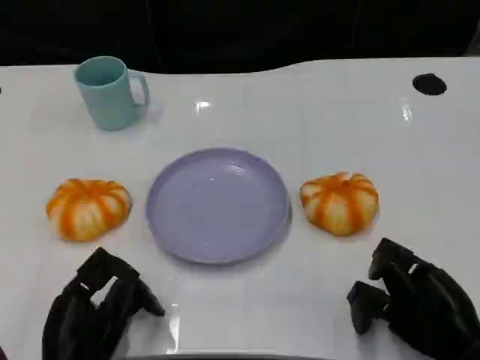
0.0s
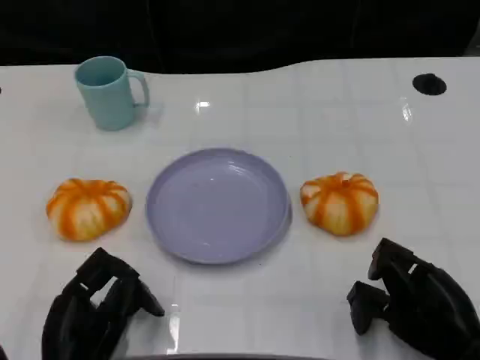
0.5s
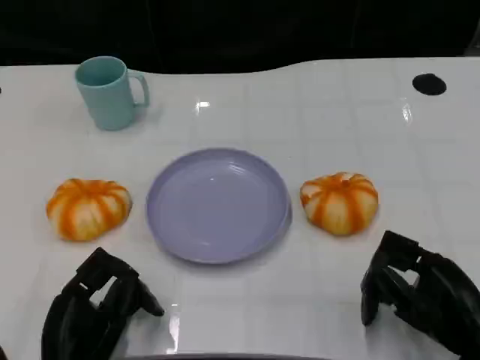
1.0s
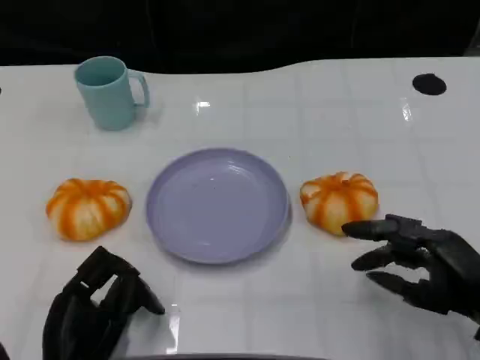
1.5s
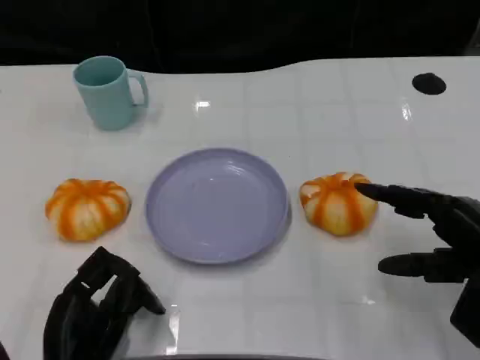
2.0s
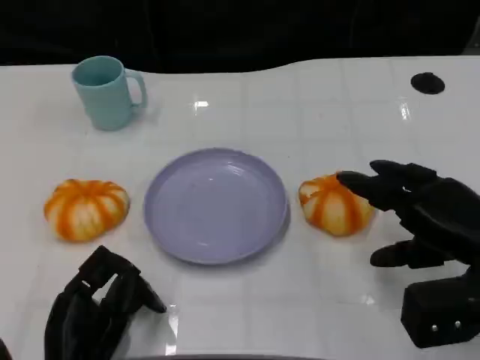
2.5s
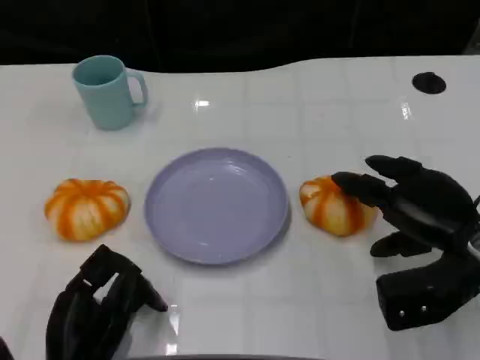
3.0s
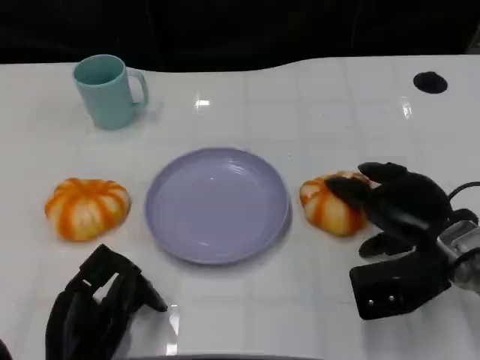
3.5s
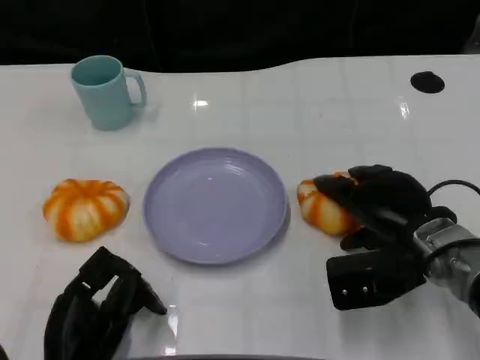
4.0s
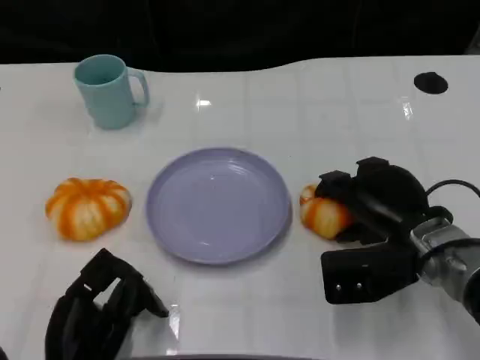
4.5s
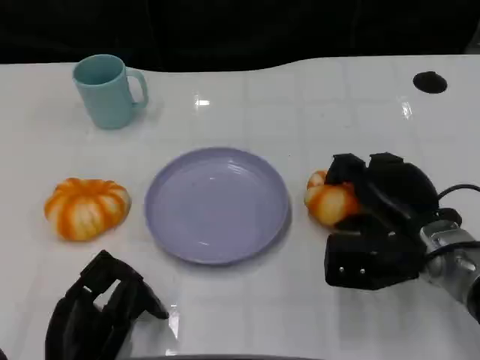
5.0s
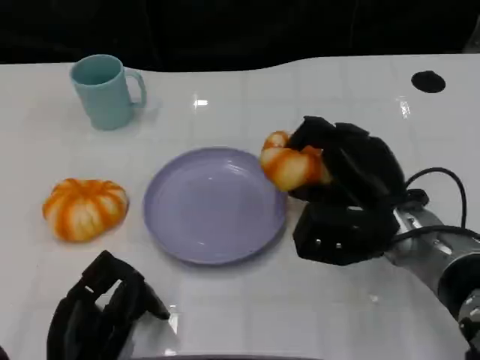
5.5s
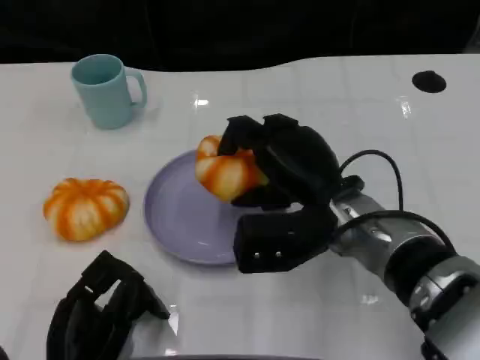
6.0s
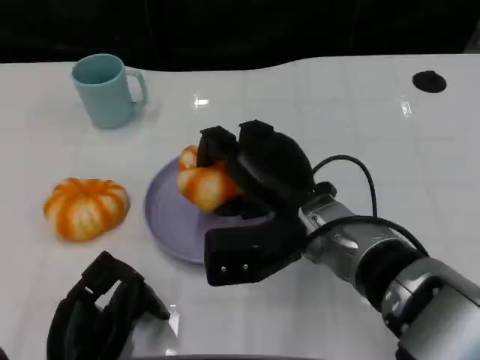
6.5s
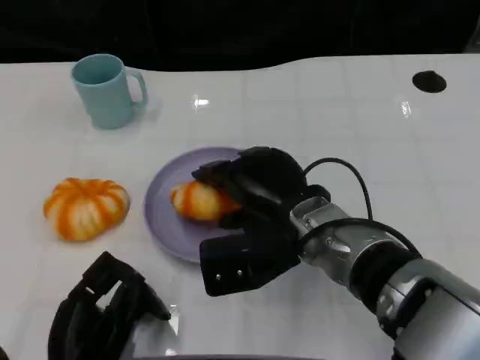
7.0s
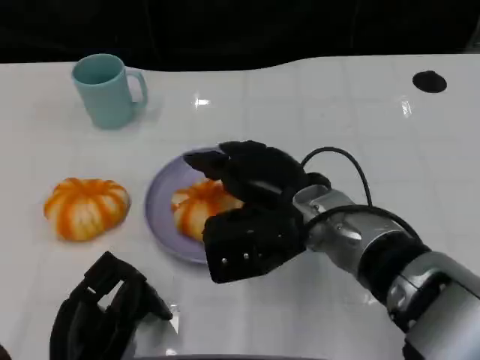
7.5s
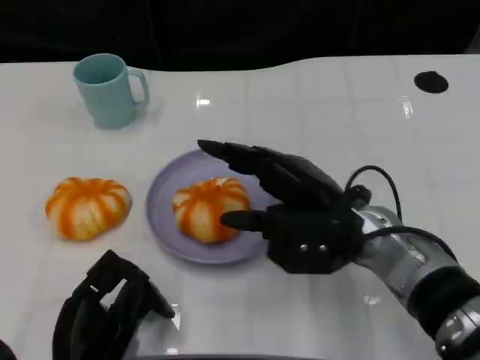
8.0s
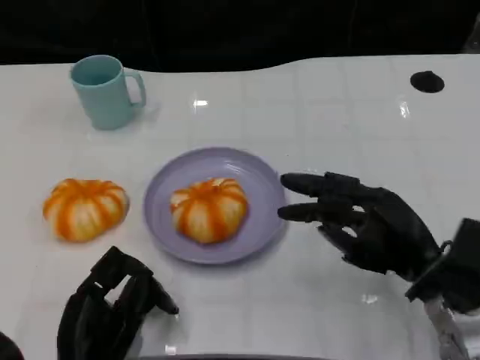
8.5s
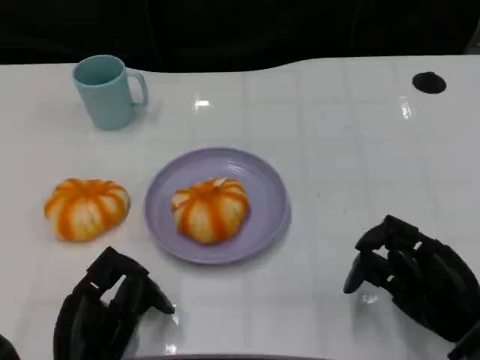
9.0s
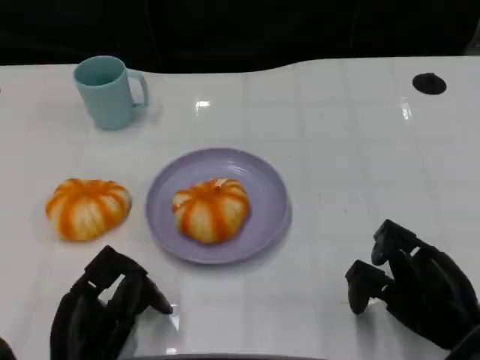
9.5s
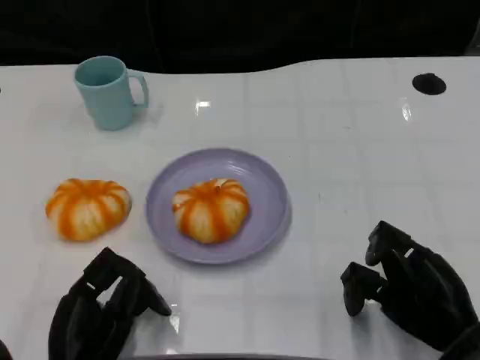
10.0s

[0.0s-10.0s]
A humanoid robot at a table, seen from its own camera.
Task of the whole recording: Grasp the bread from the table and place it into the plate.
0.0s to 2.0s: The right hand shifts approximately 10 cm upward.
2.0s to 4.0s: The right hand goes roughly 10 cm to the left and forward.
4.0s to 6.0s: The right hand heads to the left, covering roughly 10 cm.
8.0s to 10.0s: The right hand goes about 15 cm to the right, backward and downward.

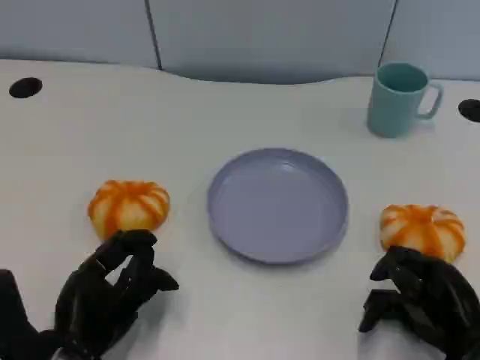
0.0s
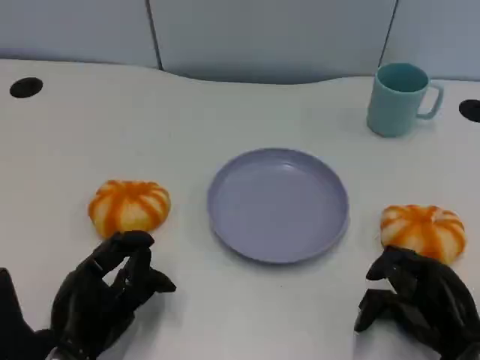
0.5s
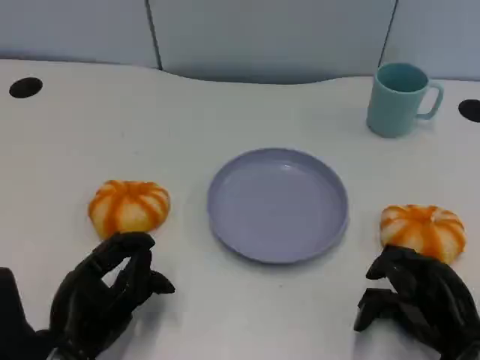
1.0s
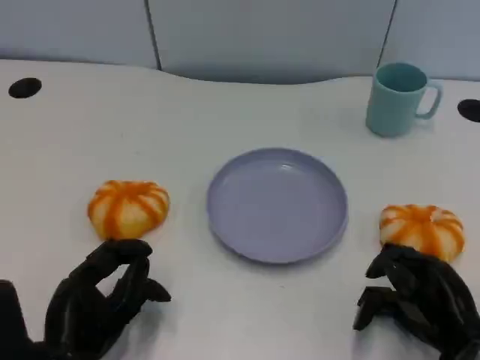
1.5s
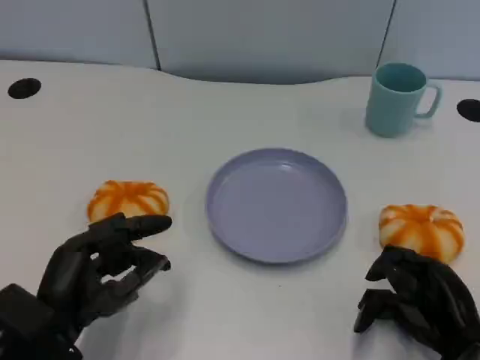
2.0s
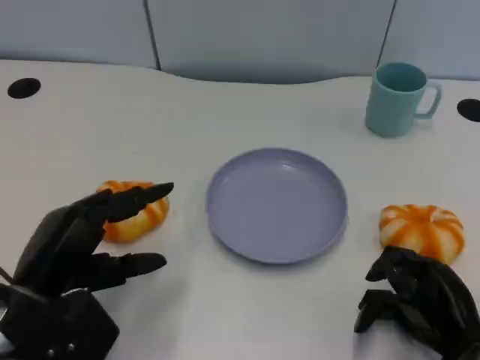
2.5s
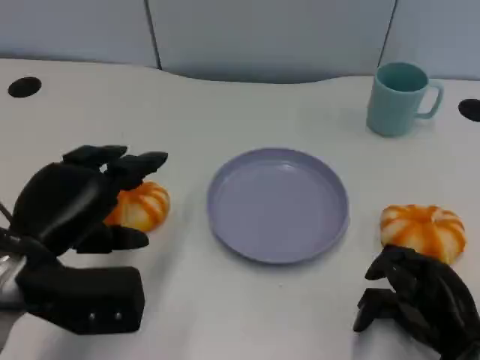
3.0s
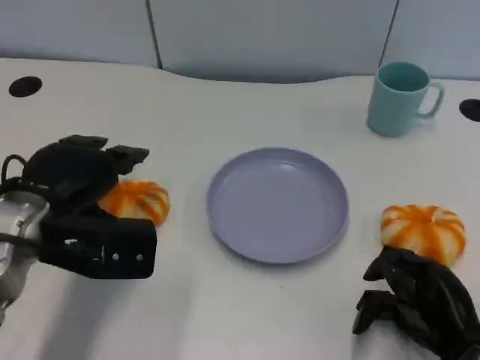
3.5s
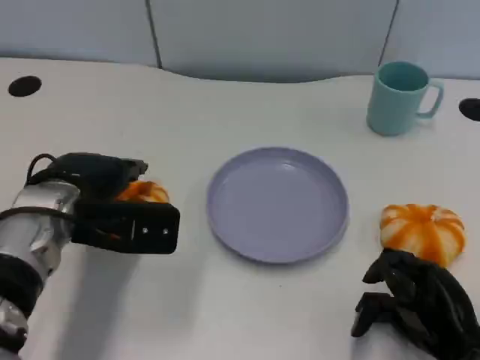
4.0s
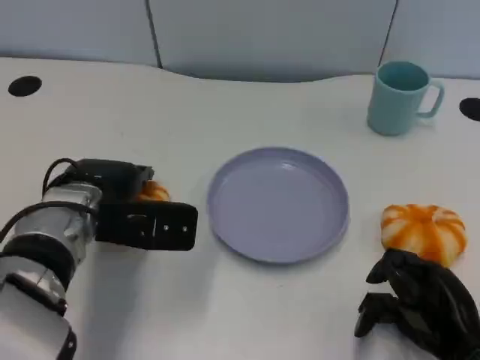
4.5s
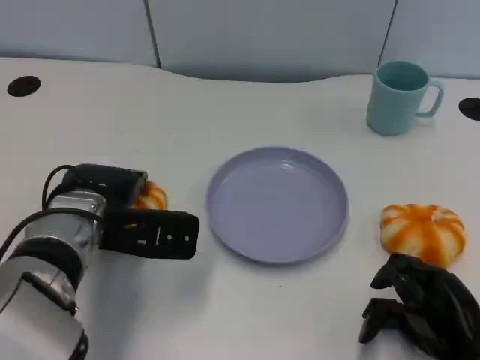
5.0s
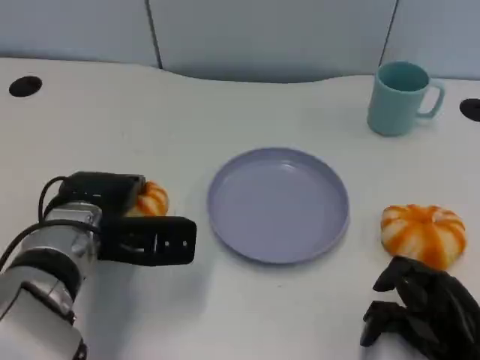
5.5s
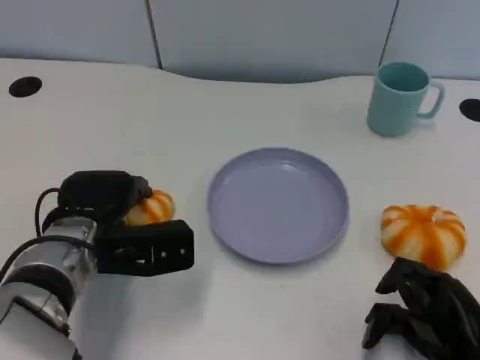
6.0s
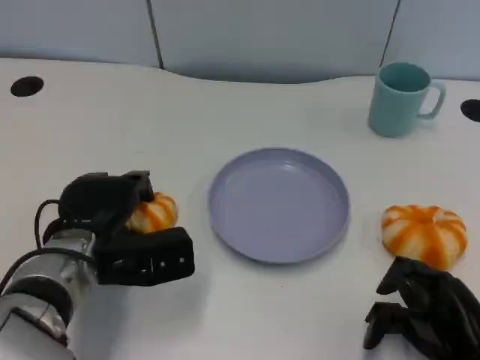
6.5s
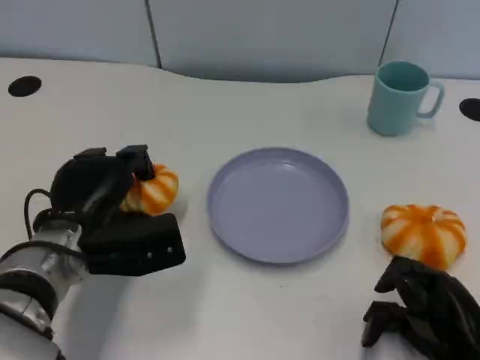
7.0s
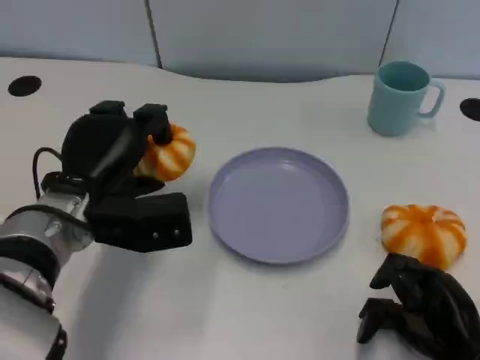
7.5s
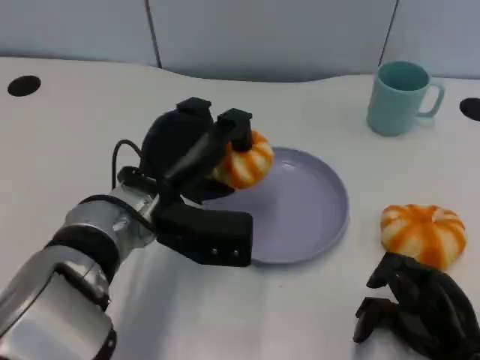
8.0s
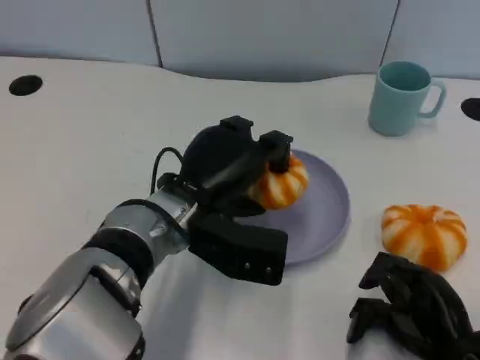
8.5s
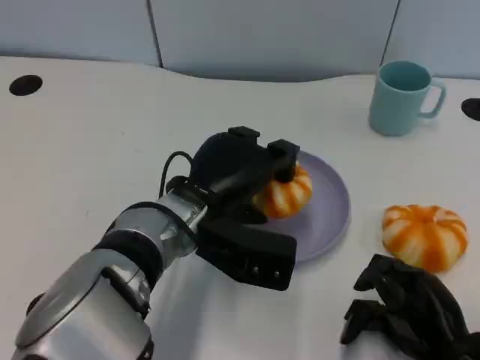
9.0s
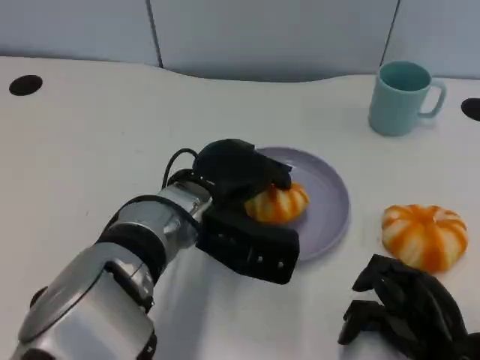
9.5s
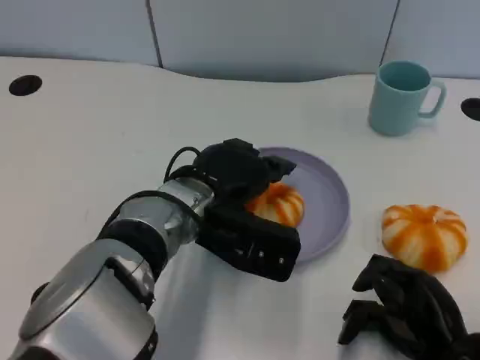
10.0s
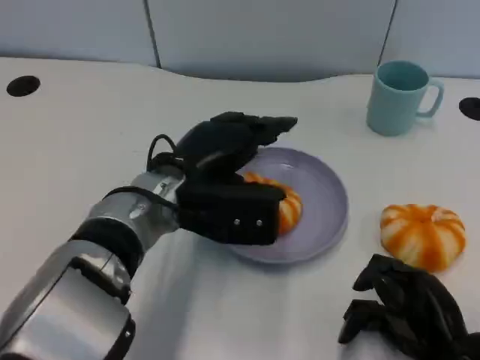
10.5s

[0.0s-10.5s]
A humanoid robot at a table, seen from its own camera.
Task of the whole recording: Grasp the bread from the table and place it into the plate.
2.0s to 4.0s: The left hand shifts some 15 cm forward and upward.
4.0s to 6.5s: The left hand moves downward, approximately 5 cm.
6.5s to 8.5s: The left hand goes roughly 10 cm to the right.

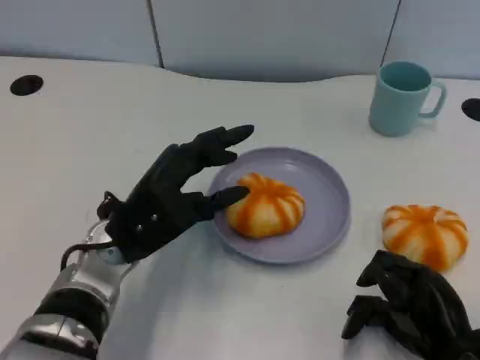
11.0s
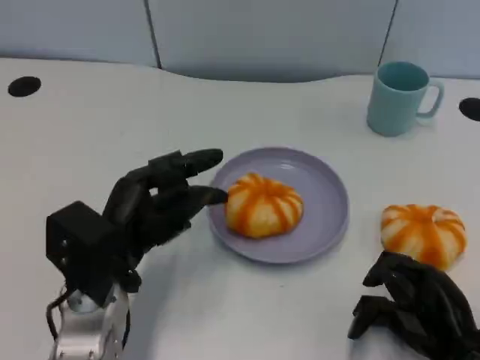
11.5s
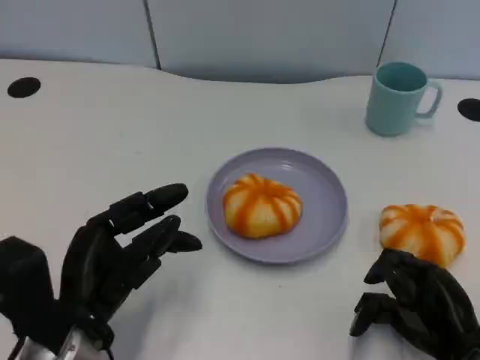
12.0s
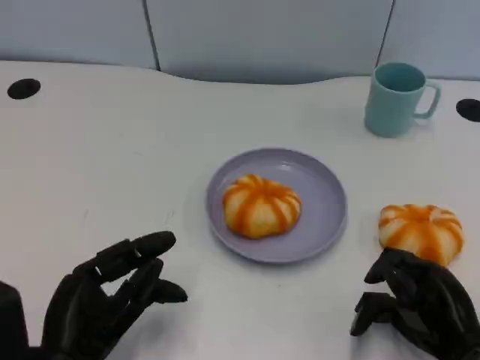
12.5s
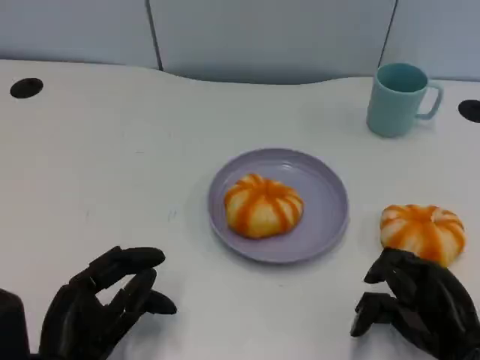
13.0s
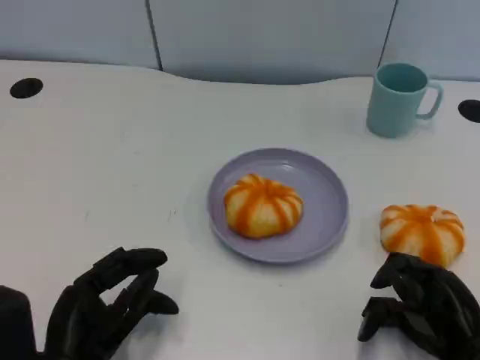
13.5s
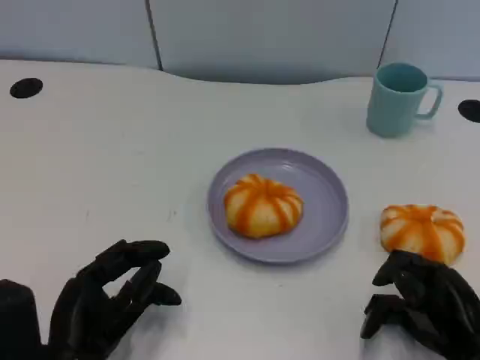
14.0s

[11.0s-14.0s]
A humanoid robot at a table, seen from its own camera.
Task of the whole recording: Grasp the bread from the table and place it into the plate.
11.0s to 12.5s: The left hand heads backward and to the left, covering about 15 cm.
12.5s to 14.0s: The hands move only a little.

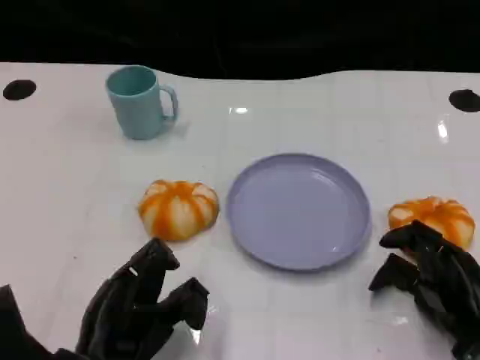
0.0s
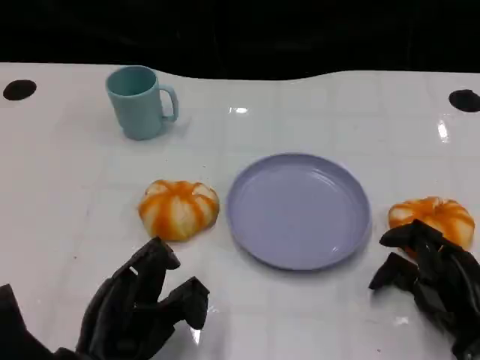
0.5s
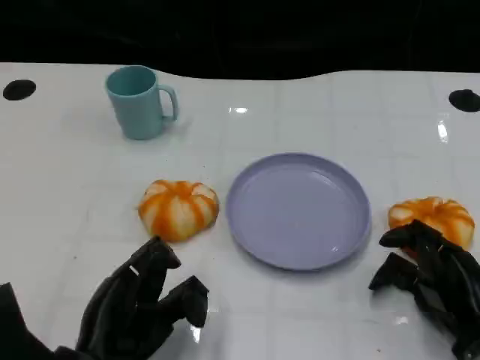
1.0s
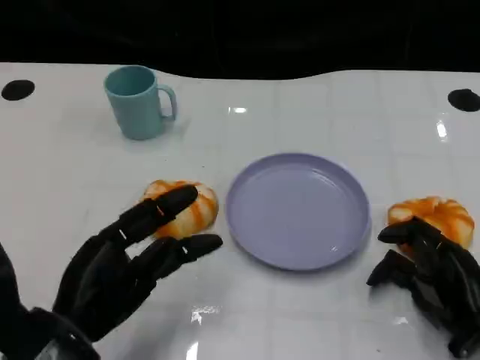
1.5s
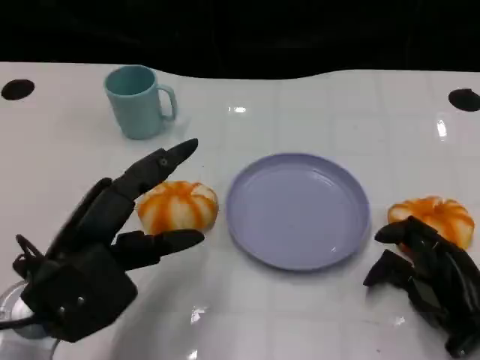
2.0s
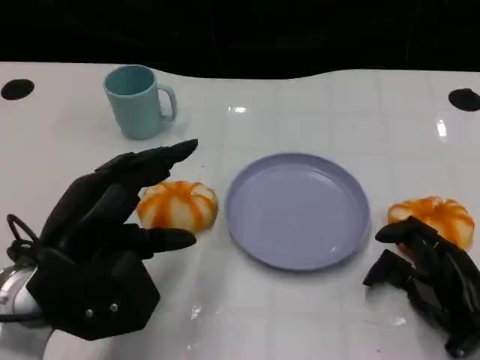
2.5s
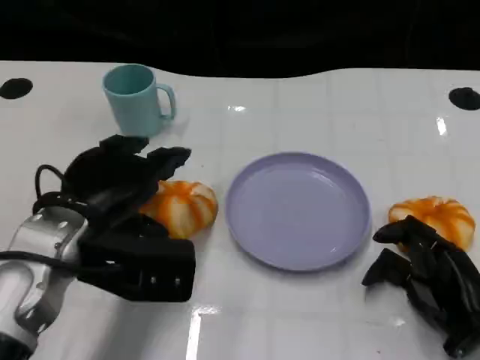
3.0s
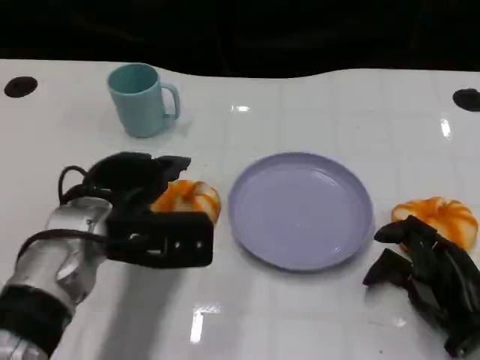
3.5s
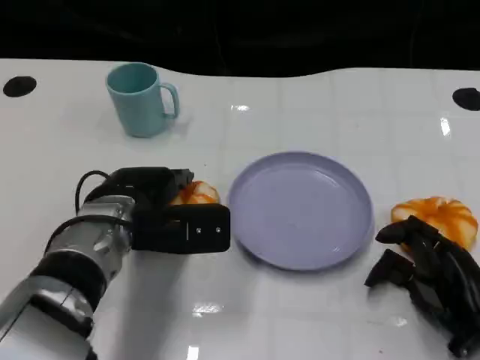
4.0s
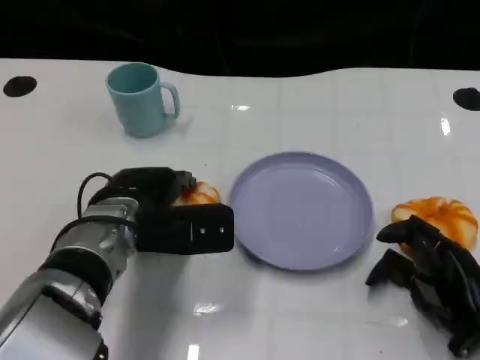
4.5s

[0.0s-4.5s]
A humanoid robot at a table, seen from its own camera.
Task of the whole recording: Grasp the bread from the table and place it into the plate.
0.0s to 2.0s: The left hand heads upward, covering some 10 cm.
2.0s to 4.5s: The left hand is displaced forward and to the right by roughly 10 cm.
